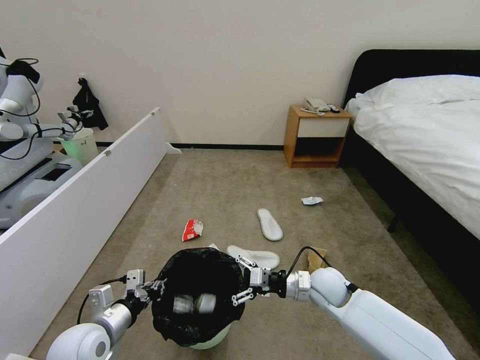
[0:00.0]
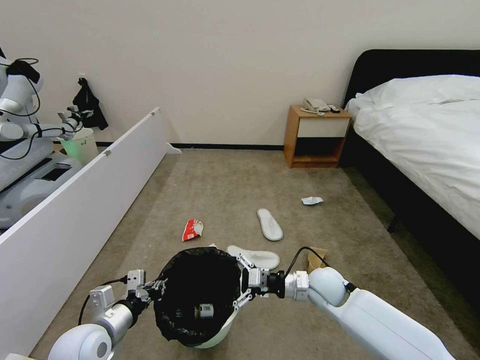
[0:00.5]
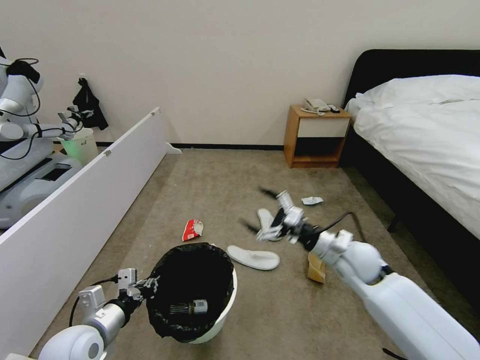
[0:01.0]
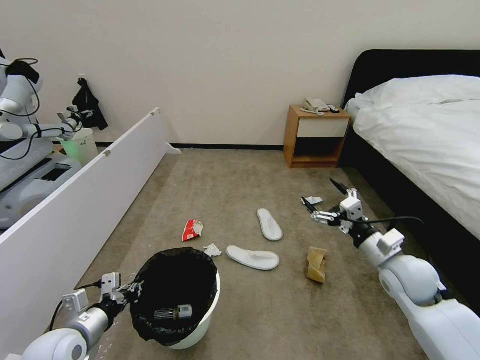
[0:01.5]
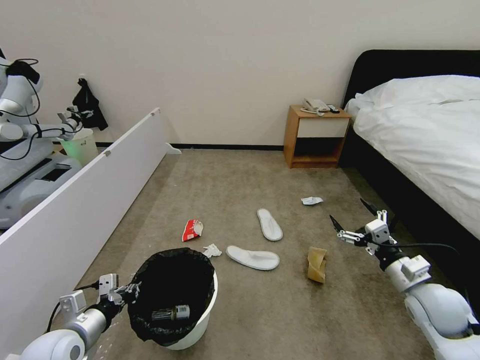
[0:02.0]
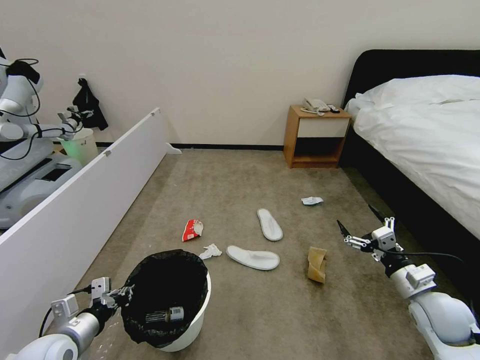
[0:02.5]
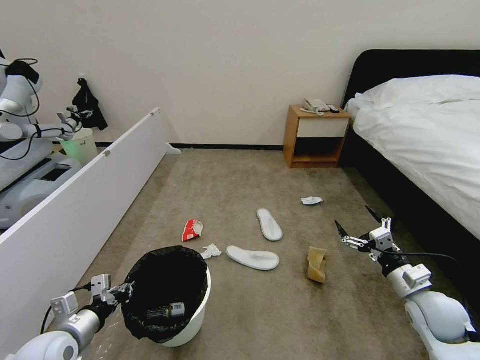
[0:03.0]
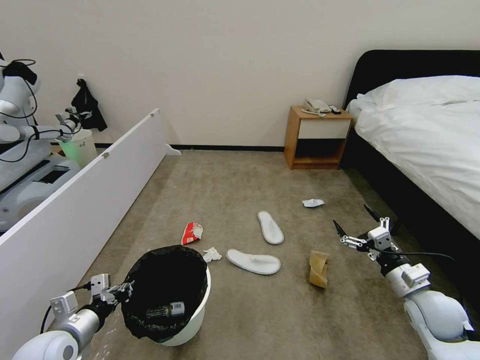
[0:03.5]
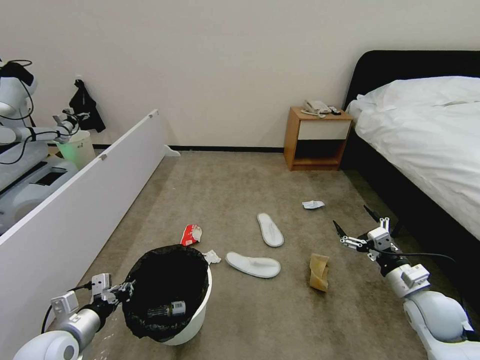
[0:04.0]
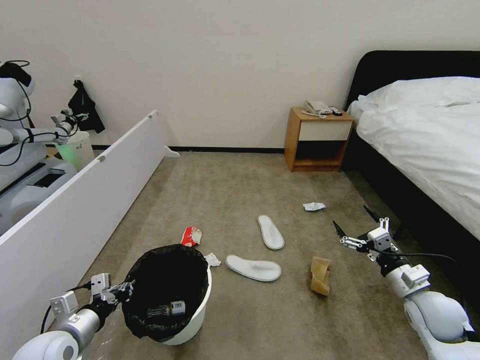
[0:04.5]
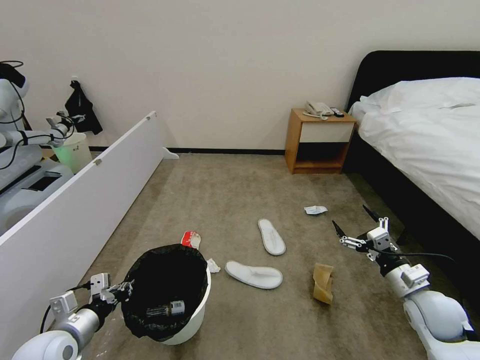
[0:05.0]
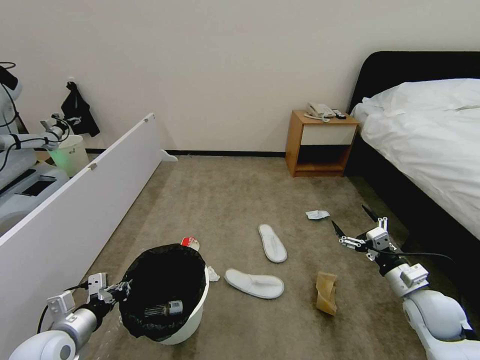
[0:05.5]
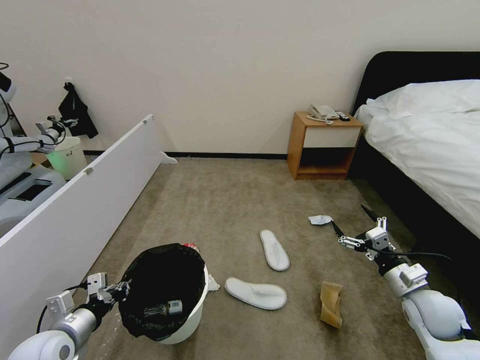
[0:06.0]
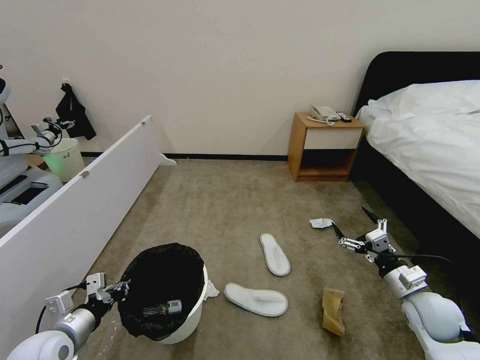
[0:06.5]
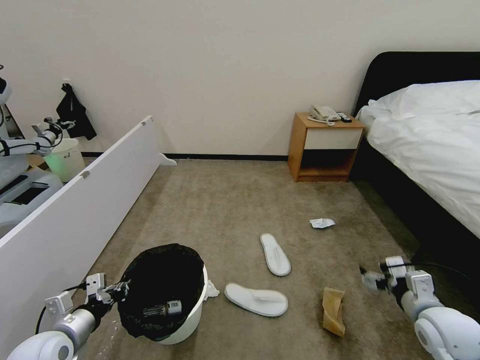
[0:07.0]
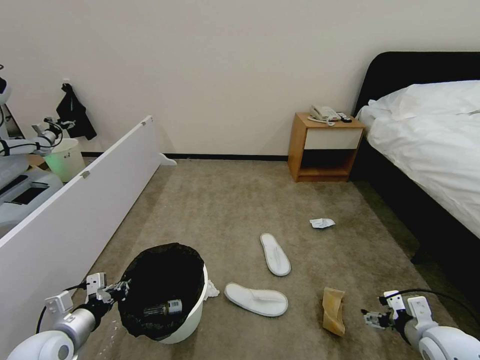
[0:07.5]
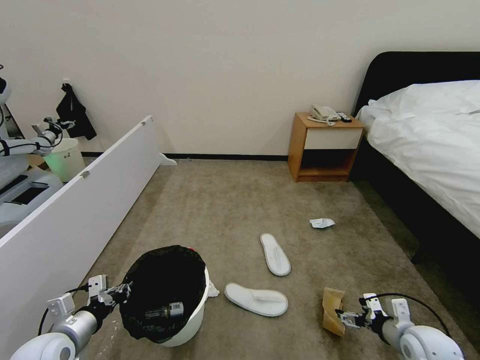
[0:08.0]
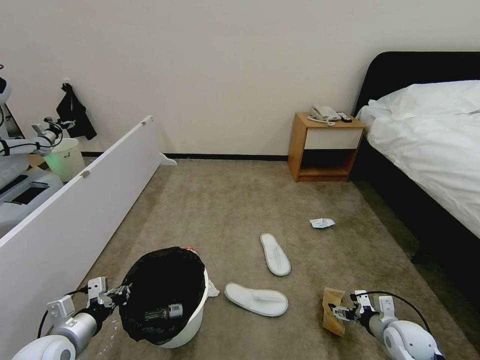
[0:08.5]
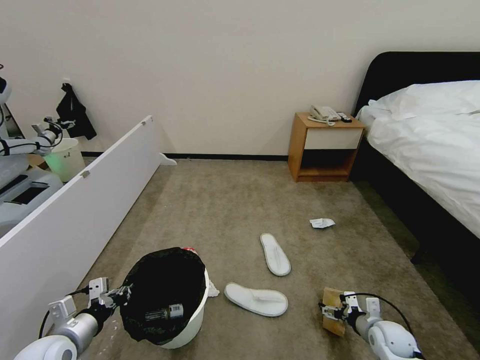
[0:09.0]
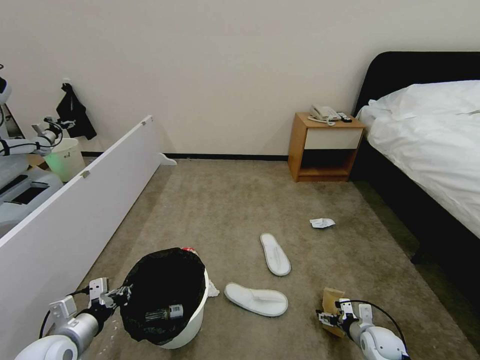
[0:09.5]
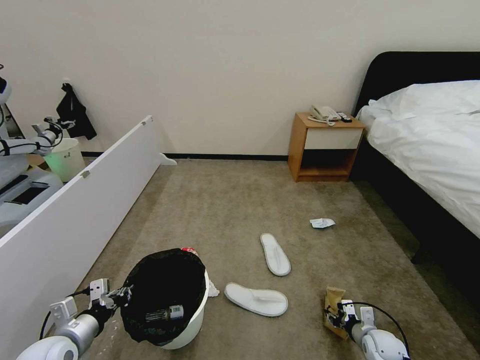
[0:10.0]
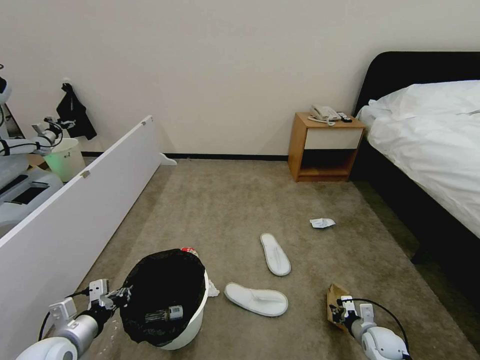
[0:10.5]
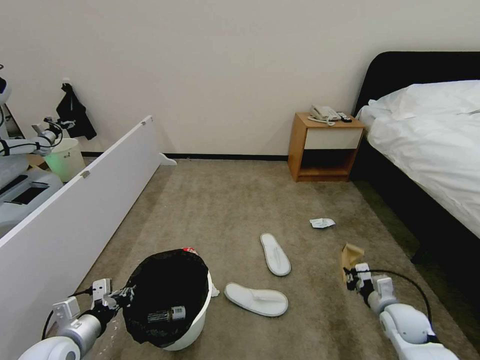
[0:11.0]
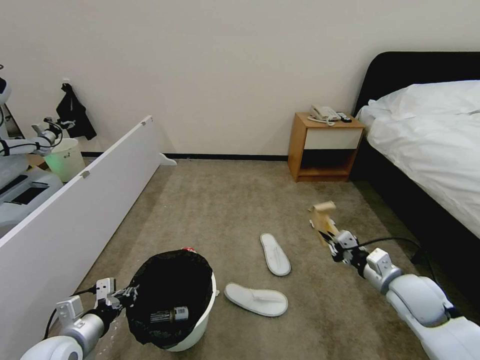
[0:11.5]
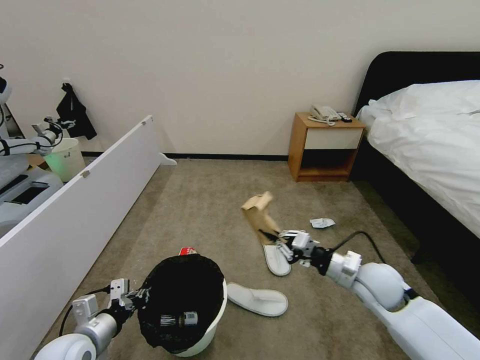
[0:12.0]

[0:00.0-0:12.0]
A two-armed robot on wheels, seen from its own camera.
Task of the whole recording: Pick up the trash bin, then pick up the garbage from the floor and place it into the trash bin.
0:00.0 to 0:02.0: The right gripper moves to the right and backward, roughly 20 cm. Meanwhile the left gripper changes place by approximately 5 cm.
0:02.0 to 0:04.0: The grippers move only a little.
0:04.0 to 0:06.0: The two grippers keep their place.
0:06.0 to 0:08.0: The right gripper moves downward and backward, approximately 10 cm.
0:08.0 to 0:10.0: The right gripper is displaced downward by roughly 15 cm, and closes its fingers.
0:10.0 to 0:12.0: The right gripper heads upward and to the left, covering roughly 25 cm, and closes up.

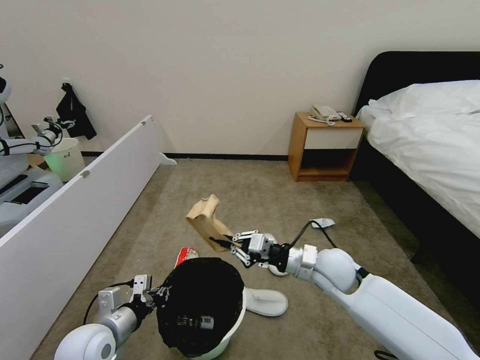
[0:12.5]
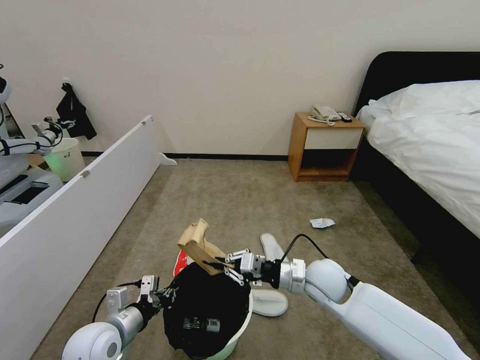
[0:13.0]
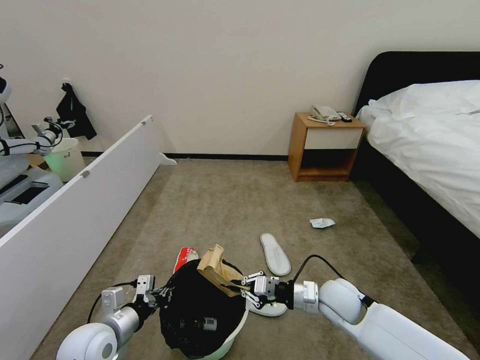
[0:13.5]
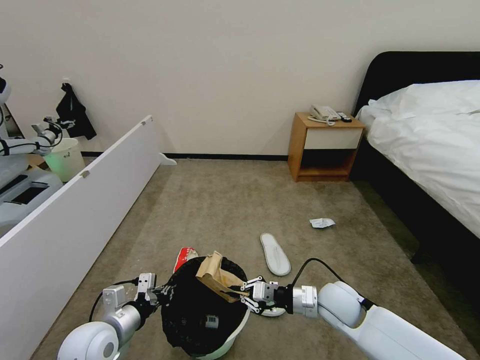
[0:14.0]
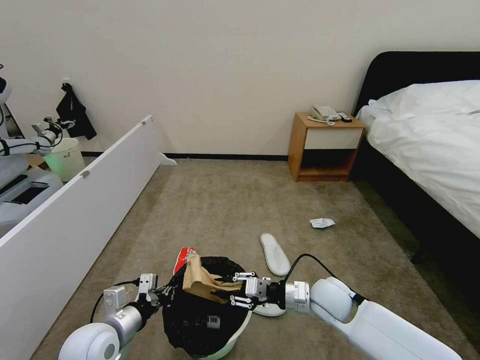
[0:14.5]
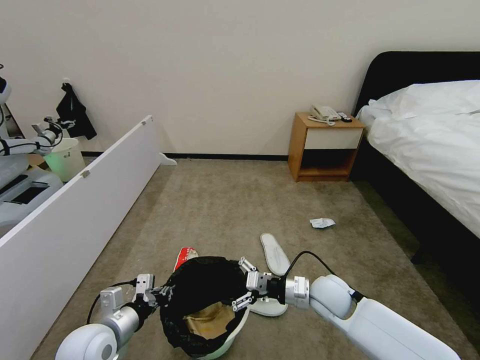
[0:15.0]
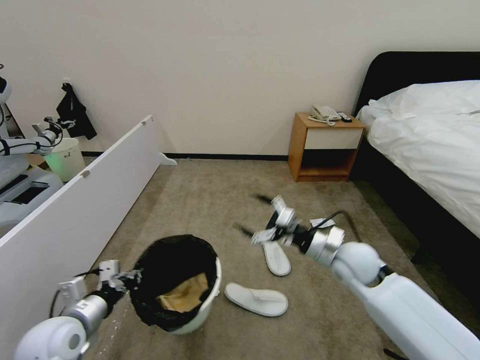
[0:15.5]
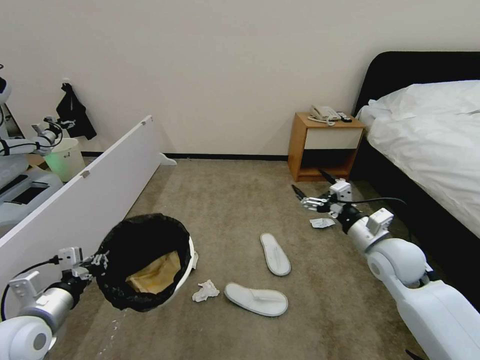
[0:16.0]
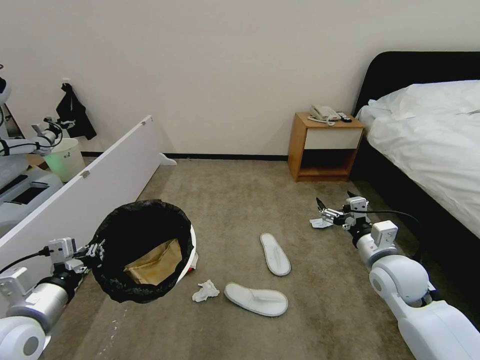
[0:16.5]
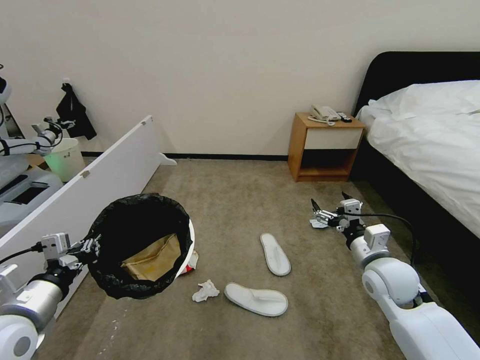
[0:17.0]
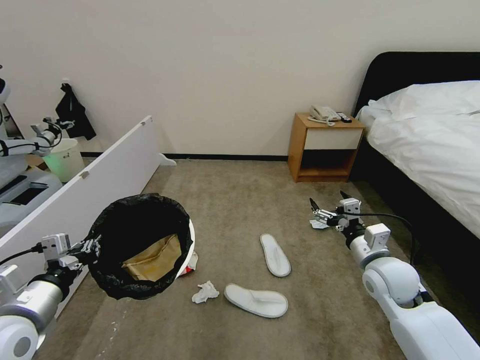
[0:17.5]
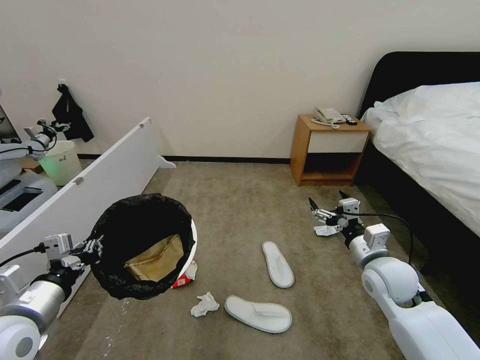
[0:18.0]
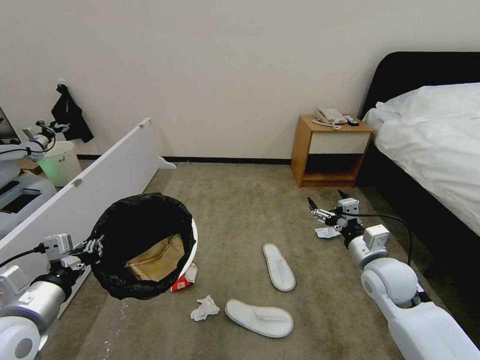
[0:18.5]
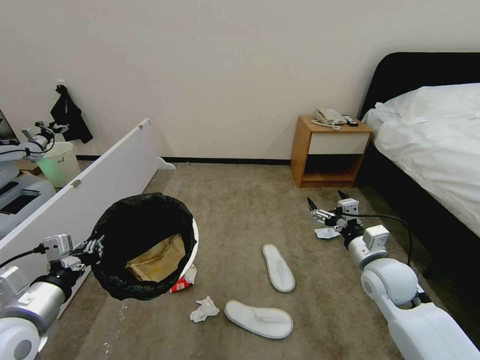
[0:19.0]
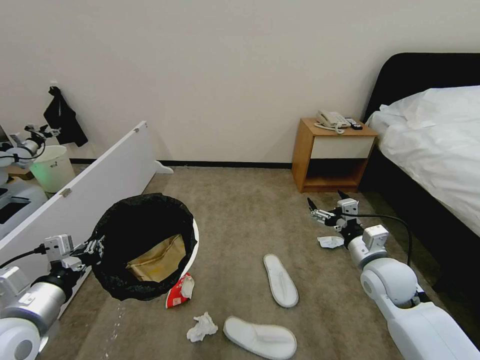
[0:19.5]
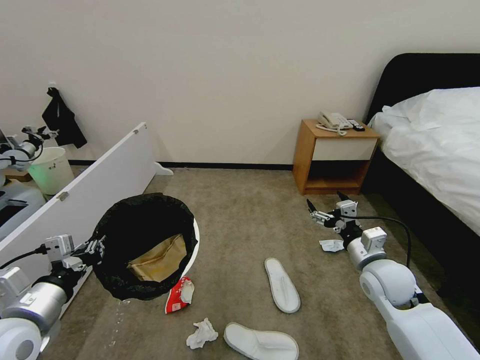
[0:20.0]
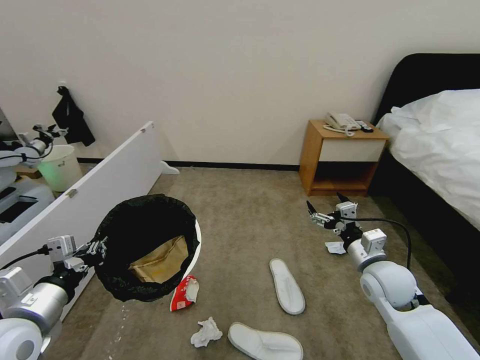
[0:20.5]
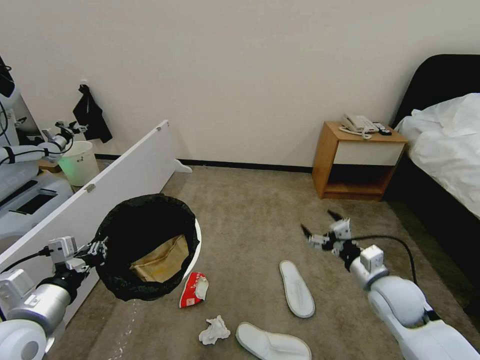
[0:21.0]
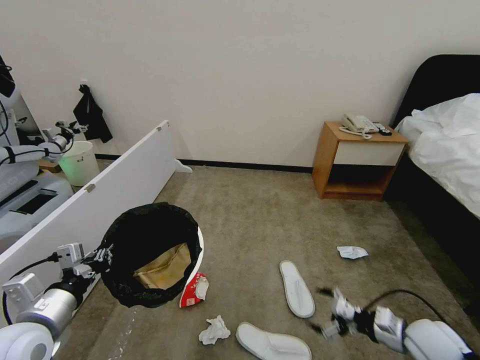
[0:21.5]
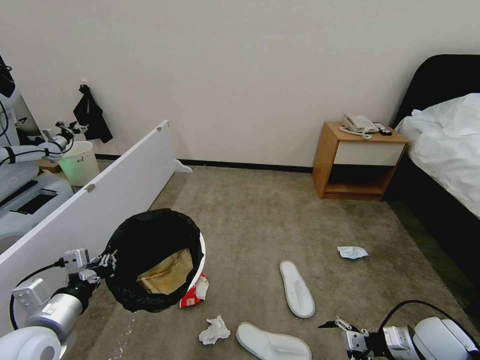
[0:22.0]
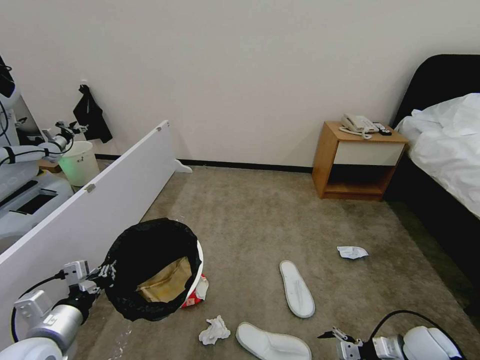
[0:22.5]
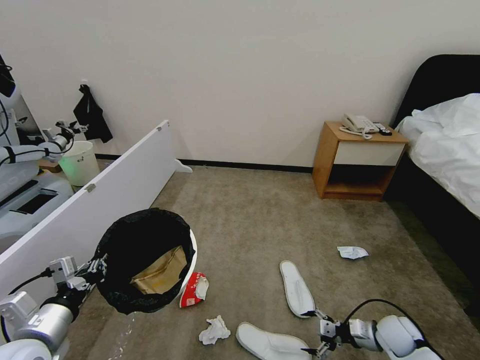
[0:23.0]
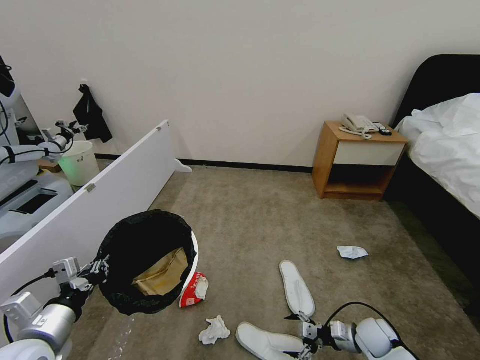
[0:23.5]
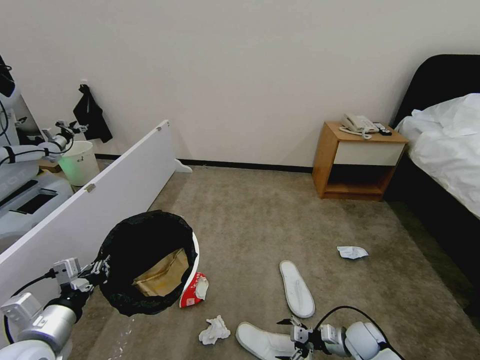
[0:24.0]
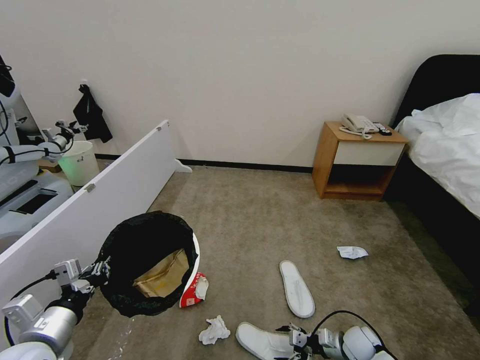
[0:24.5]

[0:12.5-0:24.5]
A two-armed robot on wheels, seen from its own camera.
Task of the whole recording: Pick up the trash bin, then pick up the garbage from the floor and place it into the trash bin.
0:12.5 to 0:14.5: The right gripper shifts some 10 cm downward.
0:14.5 to 0:16.5: The right gripper is displaced to the right and upward by some 15 cm, and opens up. The left gripper travels upward and to the left by about 15 cm.
0:16.5 to 0:18.5: The grippers stay close to where they were, moving slightly.
0:18.5 to 0:20.5: Both grippers stay about where they are.
0:20.5 to 0:22.5: The left gripper heads downward, covering about 5 cm. The right gripper travels downward, to the right and backward by about 20 cm.
0:22.5 to 0:24.5: The right gripper moves downward and to the left, approximately 15 cm.

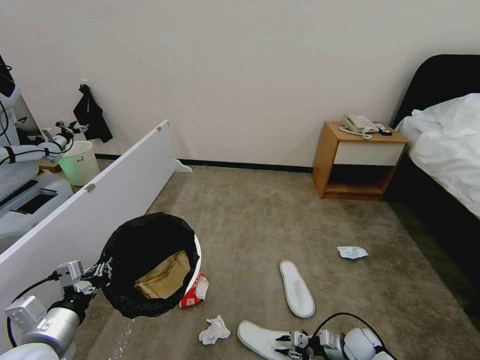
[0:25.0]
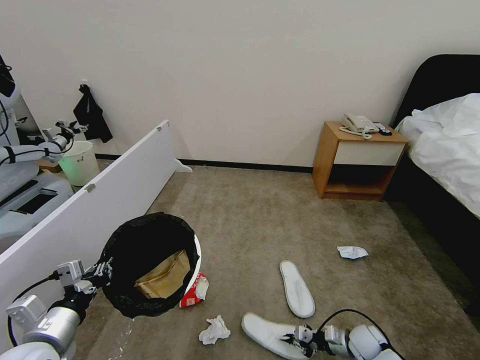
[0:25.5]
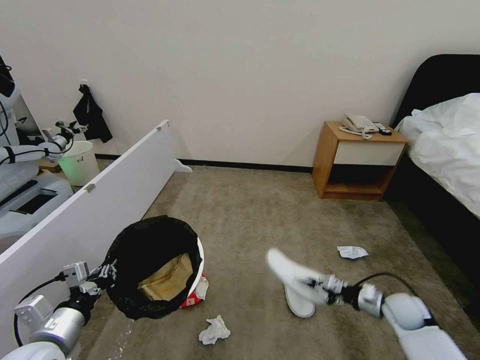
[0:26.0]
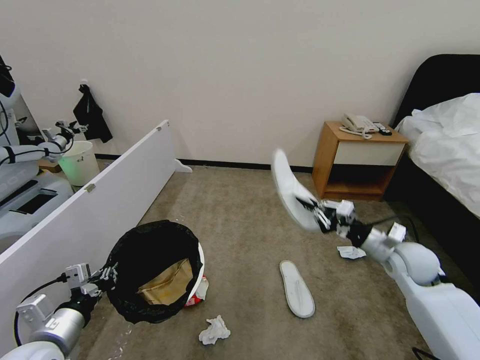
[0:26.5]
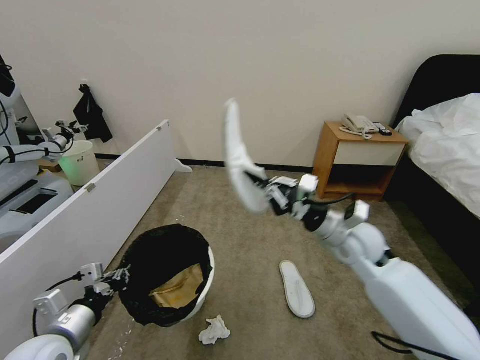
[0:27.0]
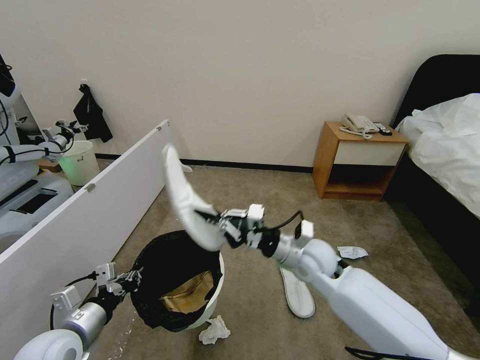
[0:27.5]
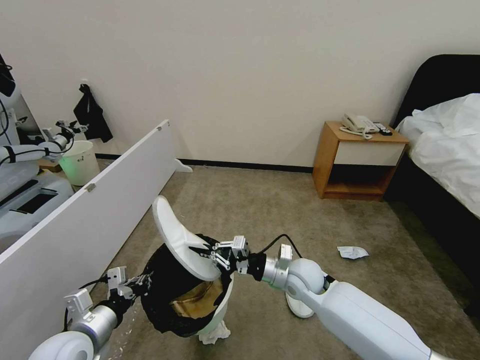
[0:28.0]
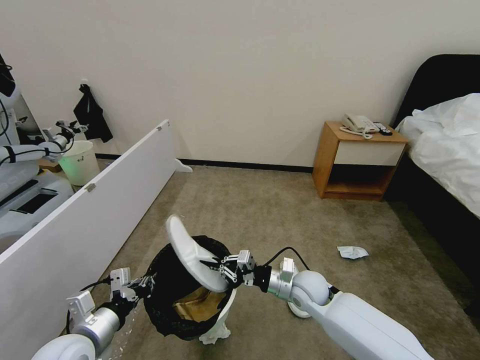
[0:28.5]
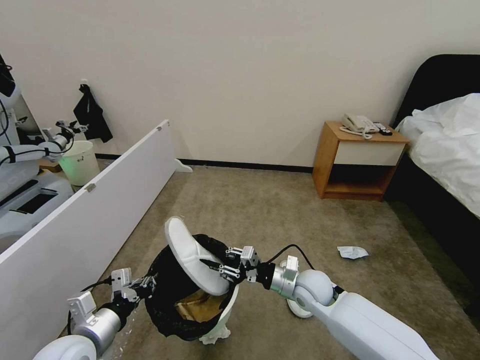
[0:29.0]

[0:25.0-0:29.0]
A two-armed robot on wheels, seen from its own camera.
Task of the whole recording: Pick up the trash bin, then pick up the garbage from the floor and place it into the trash bin.
0:25.0 to 0:27.0: The right gripper shifts about 35 cm upward, and closes.
0:27.0 to 0:29.0: The right gripper travels downward and to the left by some 20 cm, and opens.
